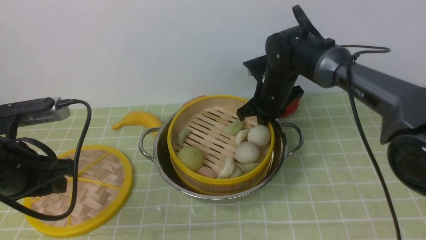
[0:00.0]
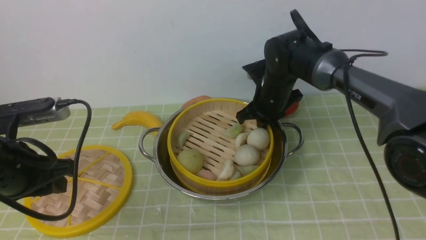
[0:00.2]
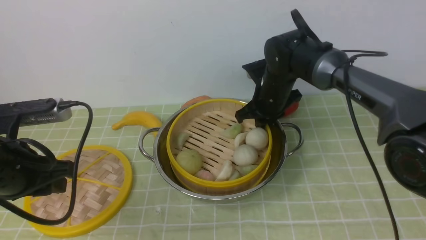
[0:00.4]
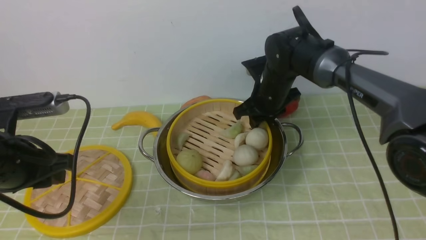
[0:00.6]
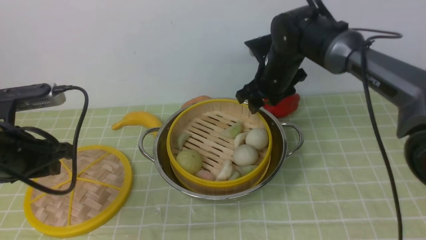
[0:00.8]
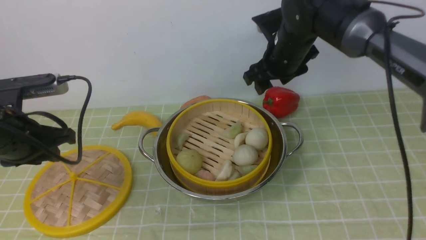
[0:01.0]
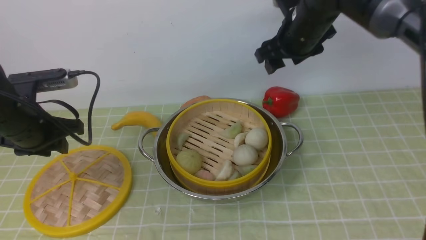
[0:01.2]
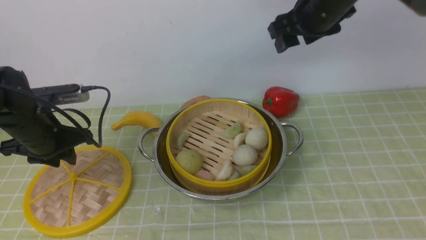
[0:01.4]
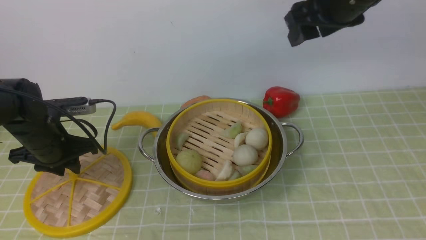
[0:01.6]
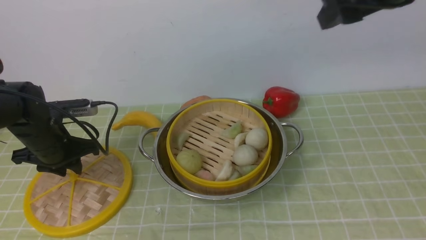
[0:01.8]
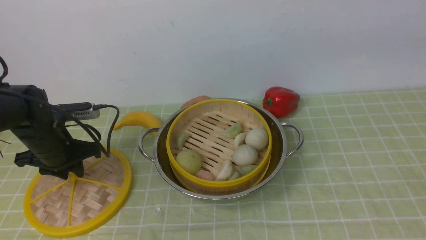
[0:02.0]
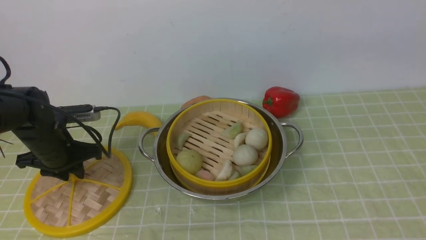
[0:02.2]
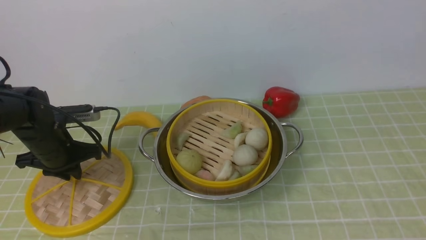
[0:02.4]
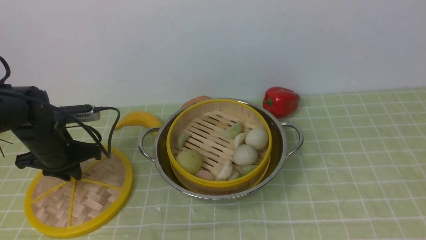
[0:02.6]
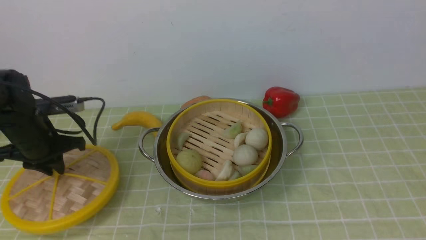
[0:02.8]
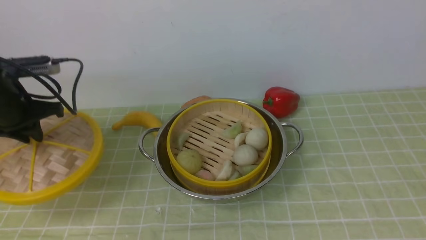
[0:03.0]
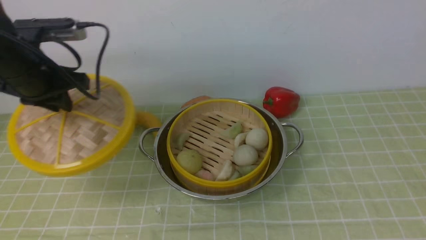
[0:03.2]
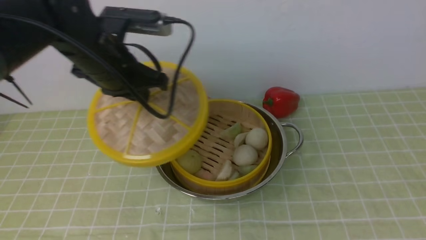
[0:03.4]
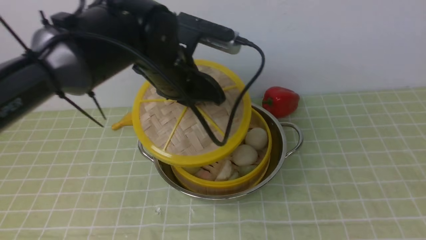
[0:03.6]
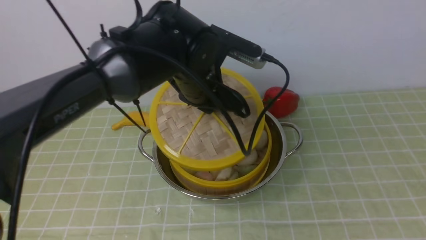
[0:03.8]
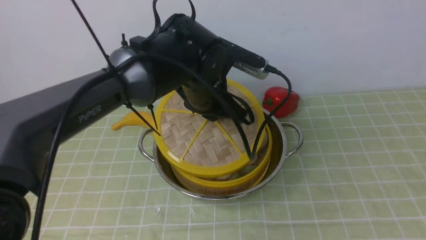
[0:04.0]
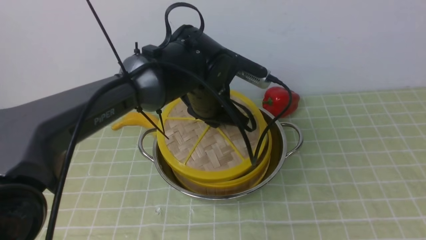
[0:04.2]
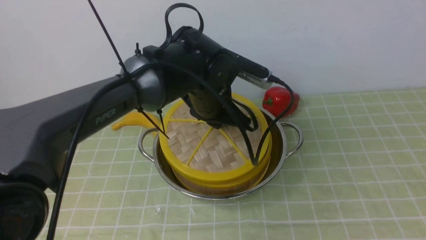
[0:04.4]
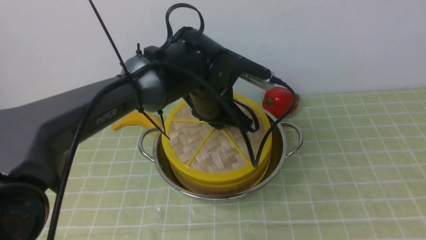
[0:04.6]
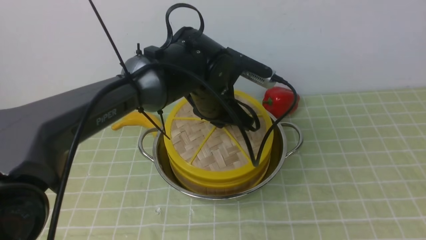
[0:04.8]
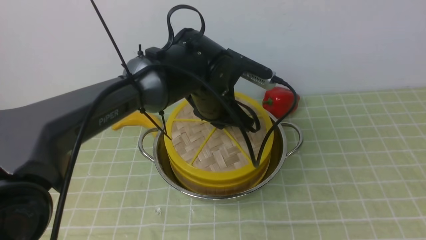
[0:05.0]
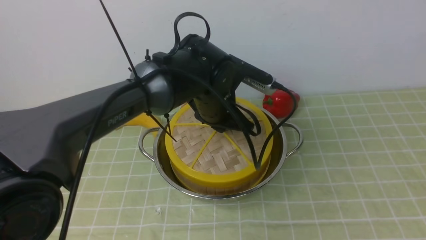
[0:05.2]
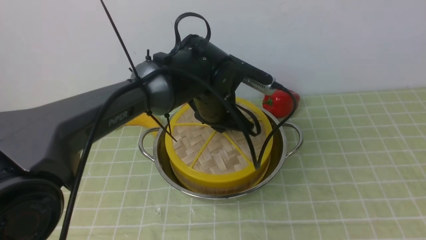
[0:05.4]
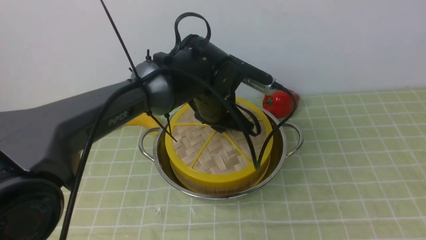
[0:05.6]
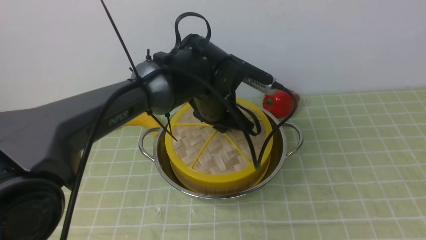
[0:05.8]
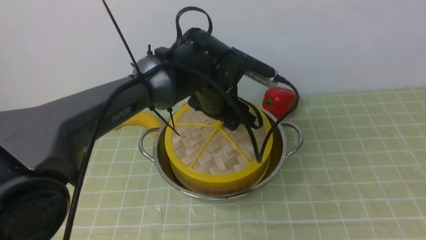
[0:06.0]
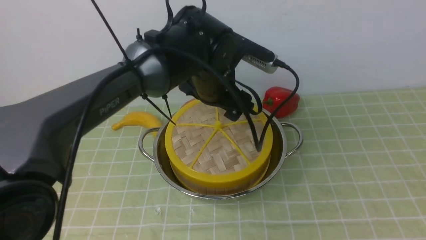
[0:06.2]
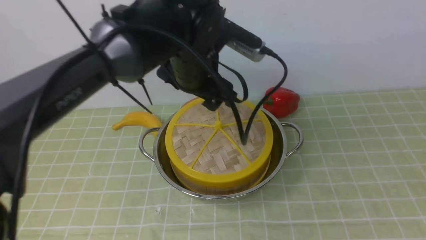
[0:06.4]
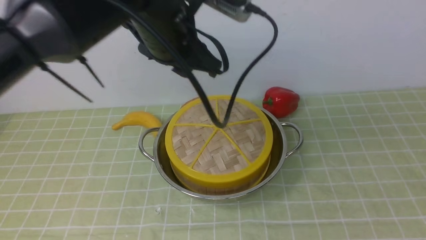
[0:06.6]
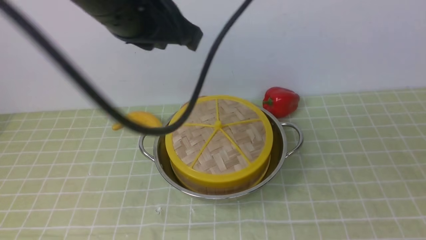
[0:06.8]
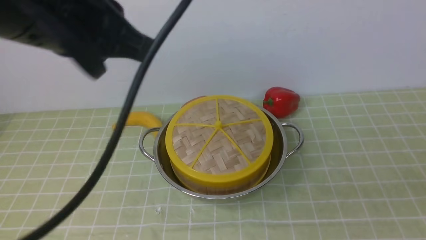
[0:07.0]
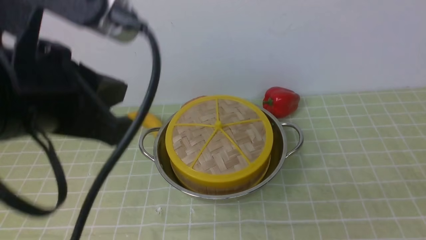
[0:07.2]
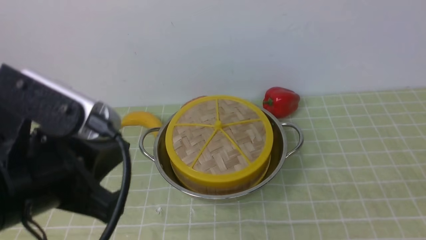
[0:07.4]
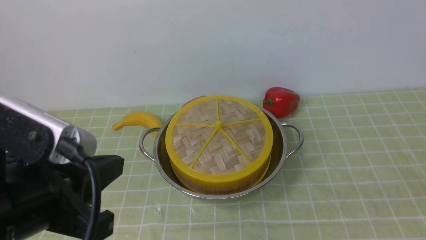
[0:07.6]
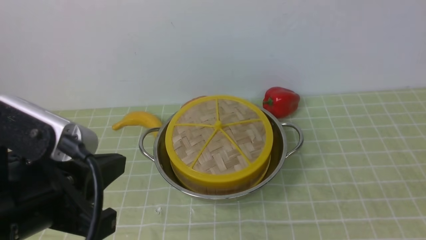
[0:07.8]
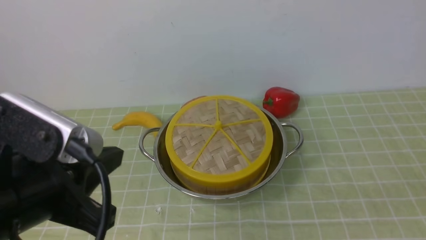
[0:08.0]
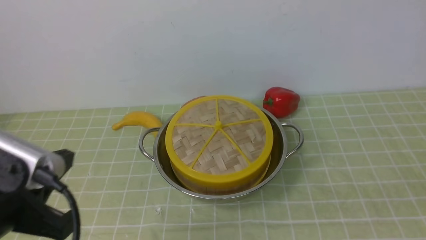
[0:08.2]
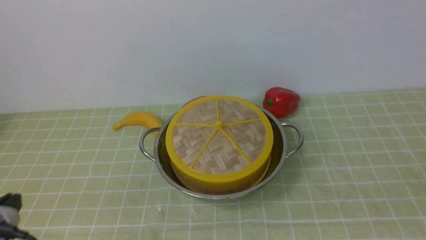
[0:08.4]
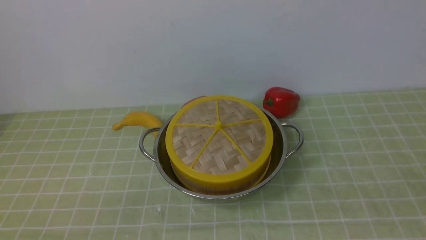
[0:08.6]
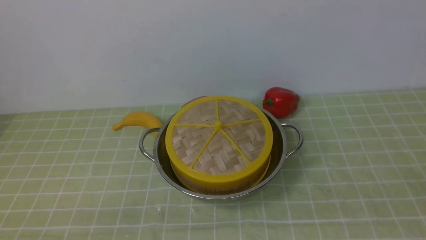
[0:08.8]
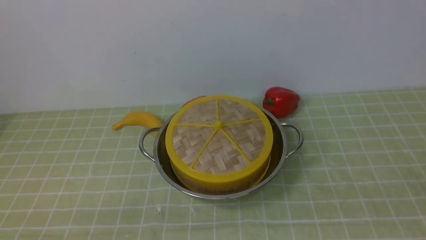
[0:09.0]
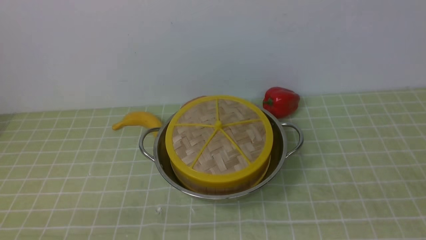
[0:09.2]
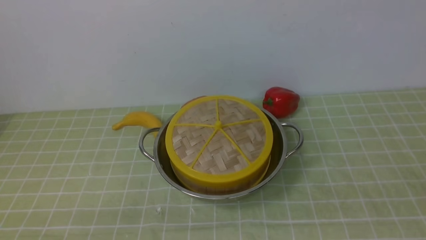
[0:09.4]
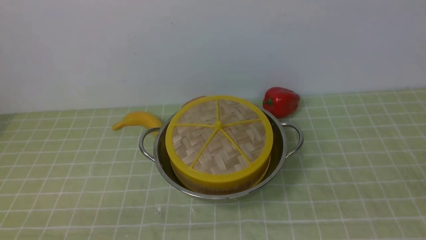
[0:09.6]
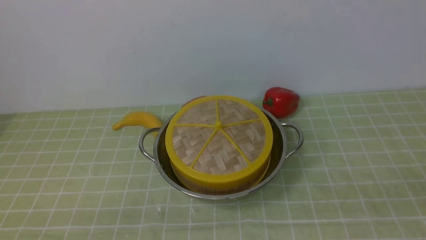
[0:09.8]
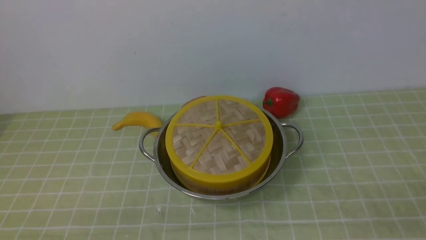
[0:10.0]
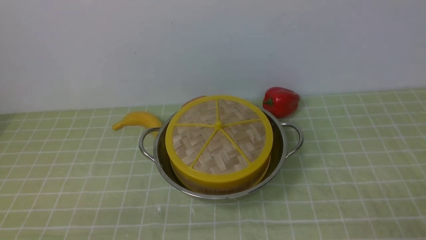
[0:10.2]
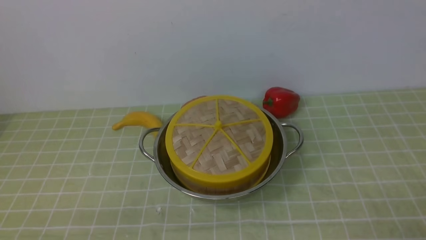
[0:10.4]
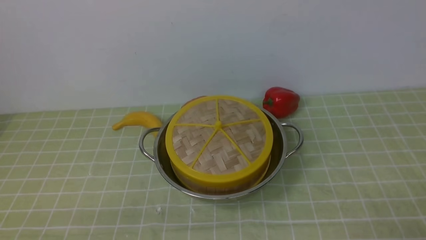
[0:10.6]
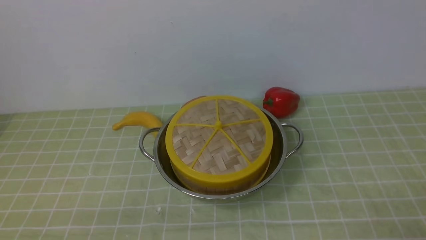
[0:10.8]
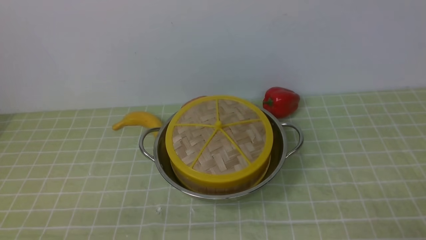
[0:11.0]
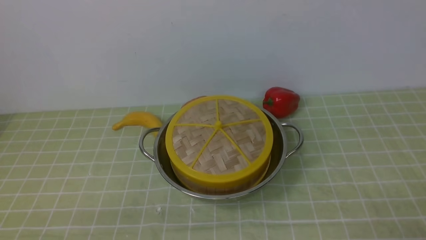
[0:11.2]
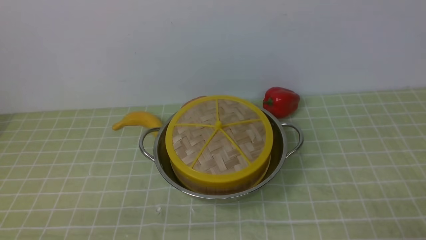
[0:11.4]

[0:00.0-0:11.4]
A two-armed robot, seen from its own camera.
Task of the whole recording: place the steamer in the pot on the green tablecloth, and put the lid on the steamer.
Step, 0:00.0 to 0:01.4: use the right arm to put the steamer into the iron steamer pot in the middle.
Step, 0:01.6 to 0:03.2: use the left arm to lift the lid of the steamer.
Step, 0:03.4 to 0:06.6: use the left arm to place the steamer lid on the steamer.
0:00.0 to 0:01.4: The right gripper moves upward, about 15 cm, and opens up; the left gripper goes some 15 cm forward and downward.
0:01.4 to 0:02.8: The right gripper moves backward, upward and to the right, some 40 cm.
0:02.8 to 0:04.2: The left gripper moves to the right, about 30 cm.
0:04.2 to 0:05.6: The grippers move only a little.
0:05.6 to 0:07.2: The left gripper shifts some 30 cm backward, upward and to the left, and opens and closes again, while the right gripper heads downward, covering some 15 cm, and closes.
0:07.2 to 0:08.6: The left gripper goes approximately 25 cm downward, to the left and backward.
